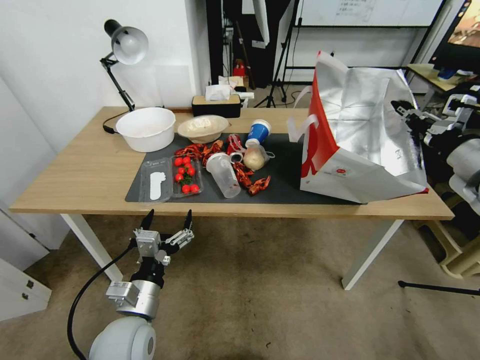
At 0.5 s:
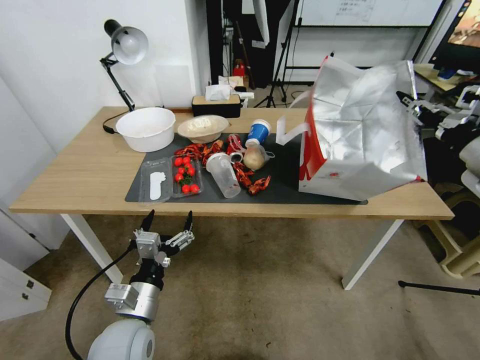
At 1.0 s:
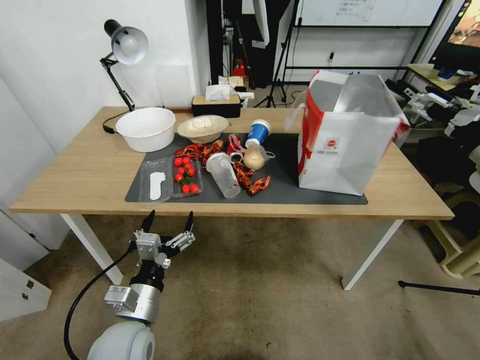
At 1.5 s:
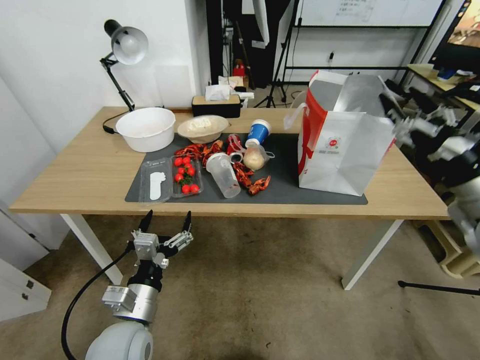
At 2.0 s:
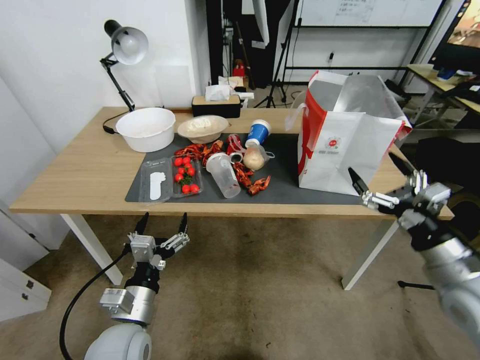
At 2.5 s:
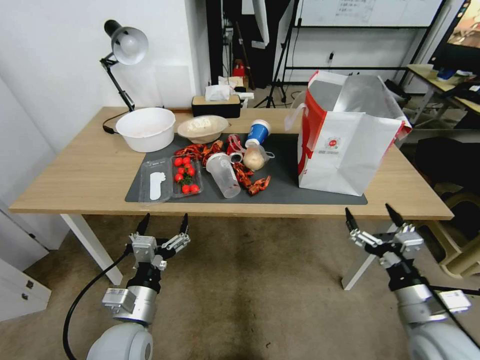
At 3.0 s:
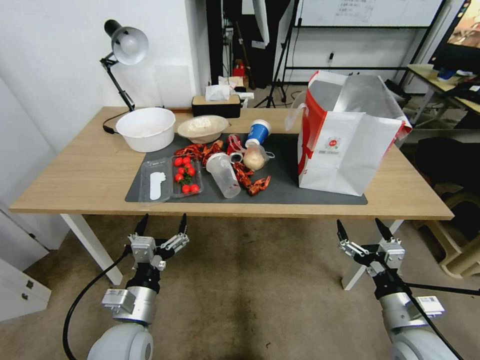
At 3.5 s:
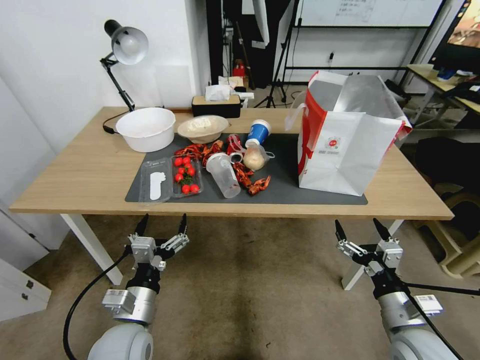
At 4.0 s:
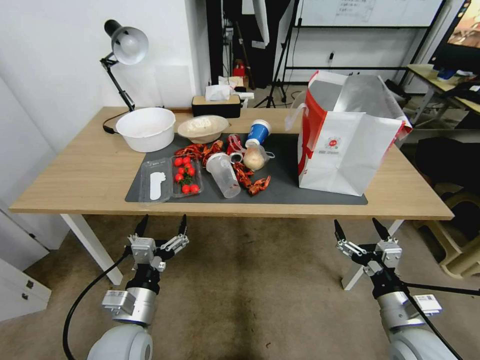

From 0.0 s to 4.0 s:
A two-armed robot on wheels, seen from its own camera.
Task of the whole recording: Pick up the food delivery bag from the floor and place it on the table.
From 0.0 s to 2.0 s: The right gripper moves downward, backward and to the left, some 20 cm, and opens up.
From 2.0 s to 4.0 s: The right gripper is displaced downward and to the left by approximately 15 cm.

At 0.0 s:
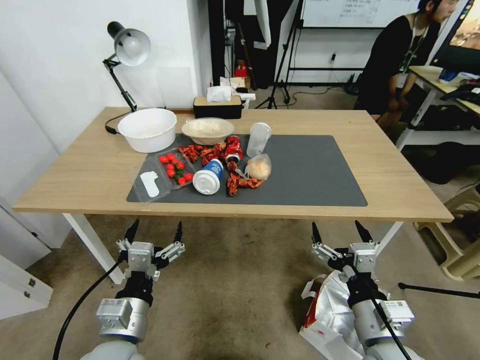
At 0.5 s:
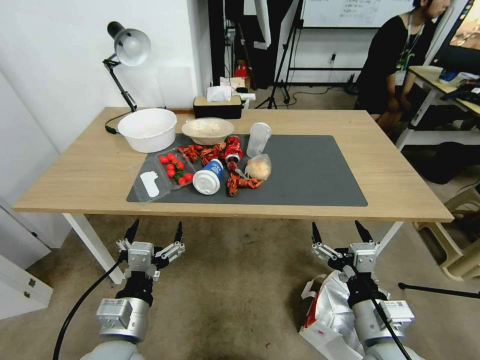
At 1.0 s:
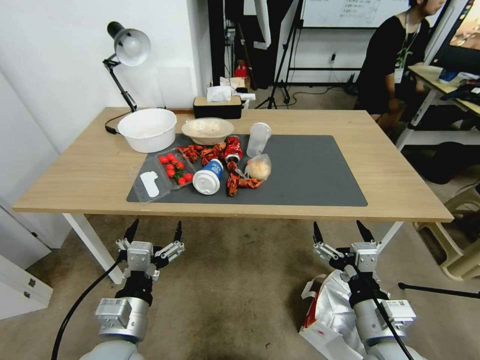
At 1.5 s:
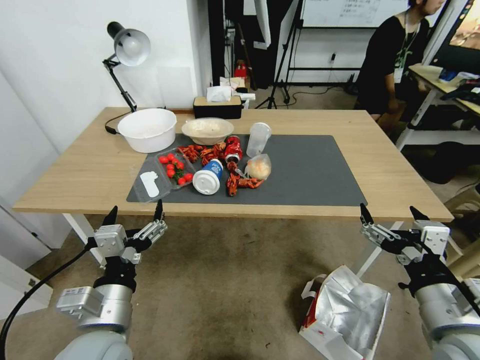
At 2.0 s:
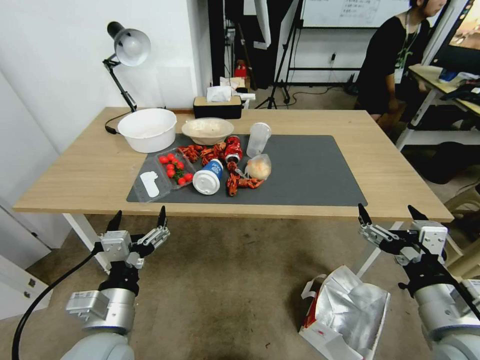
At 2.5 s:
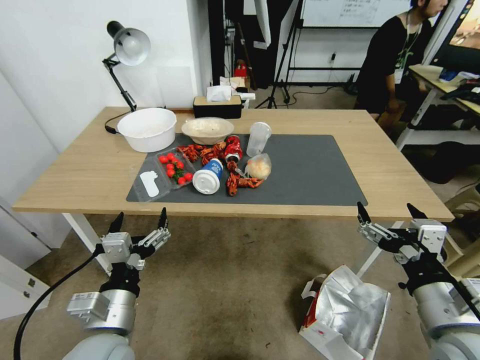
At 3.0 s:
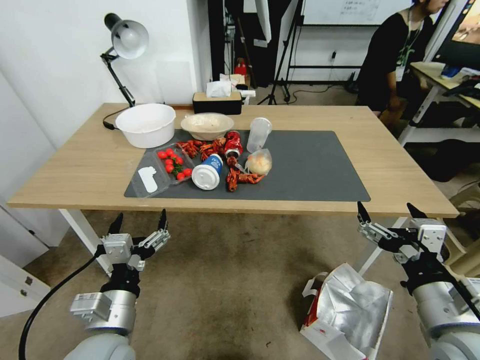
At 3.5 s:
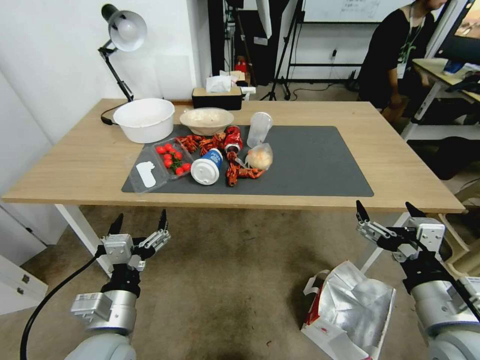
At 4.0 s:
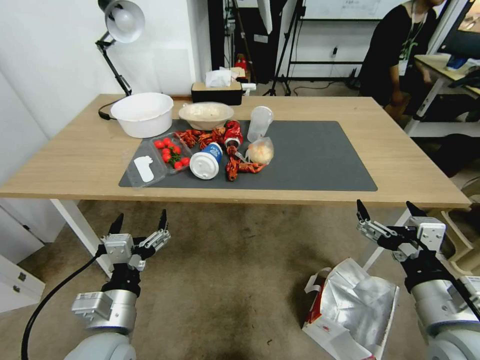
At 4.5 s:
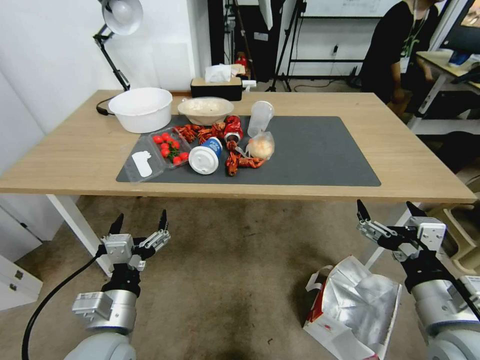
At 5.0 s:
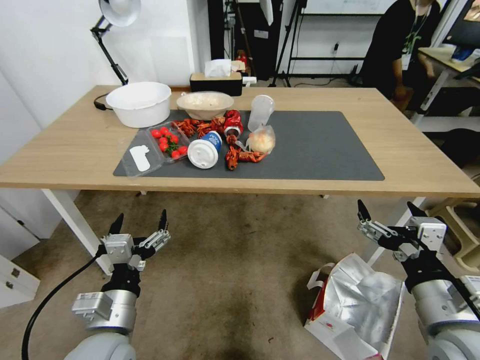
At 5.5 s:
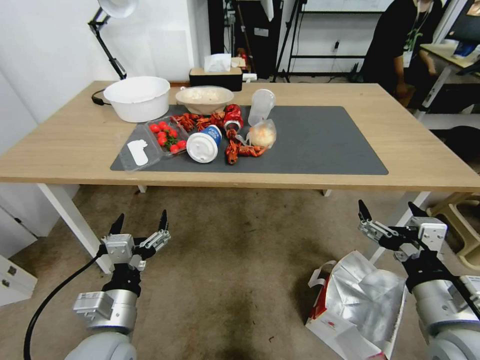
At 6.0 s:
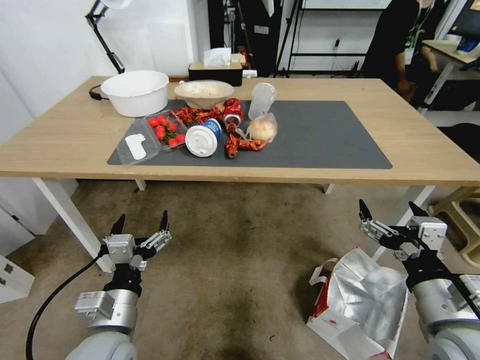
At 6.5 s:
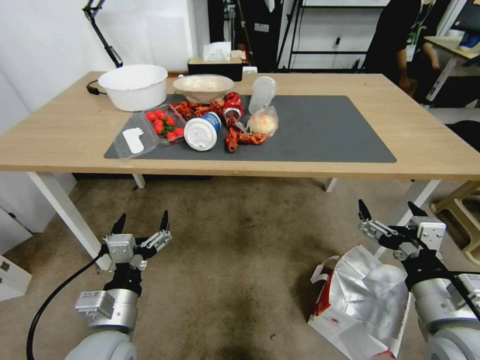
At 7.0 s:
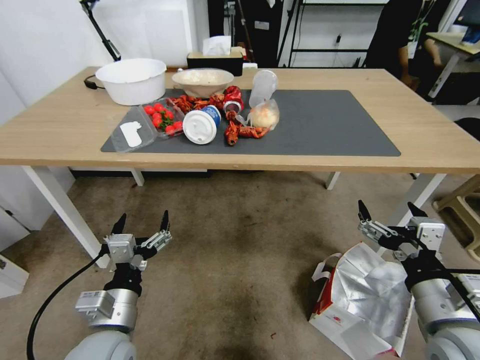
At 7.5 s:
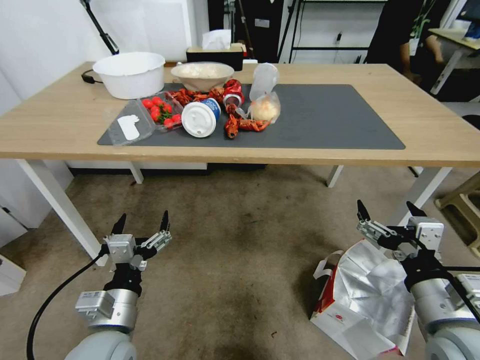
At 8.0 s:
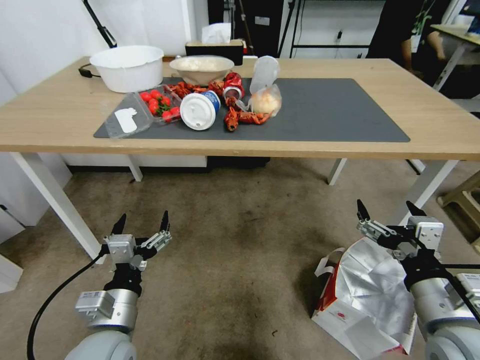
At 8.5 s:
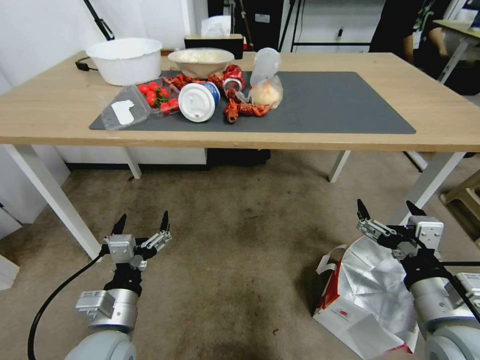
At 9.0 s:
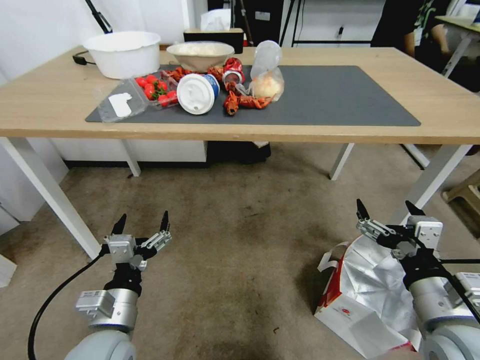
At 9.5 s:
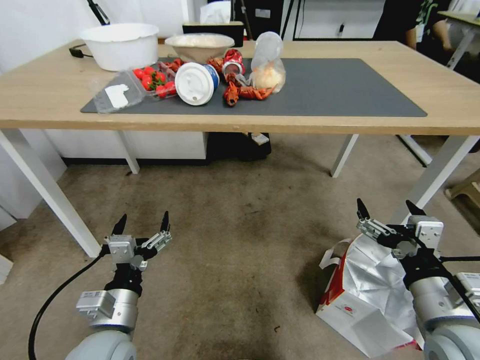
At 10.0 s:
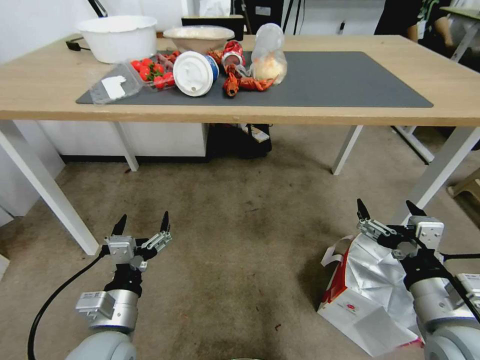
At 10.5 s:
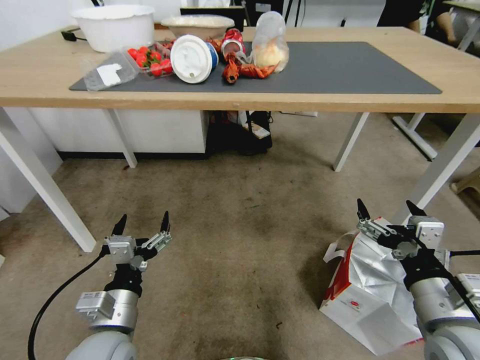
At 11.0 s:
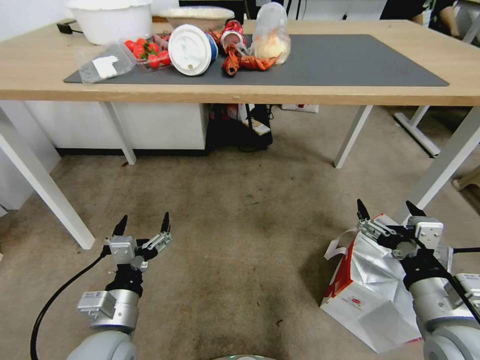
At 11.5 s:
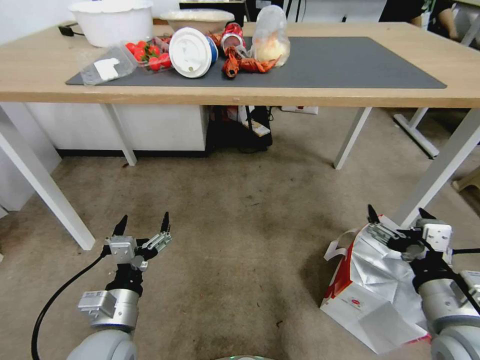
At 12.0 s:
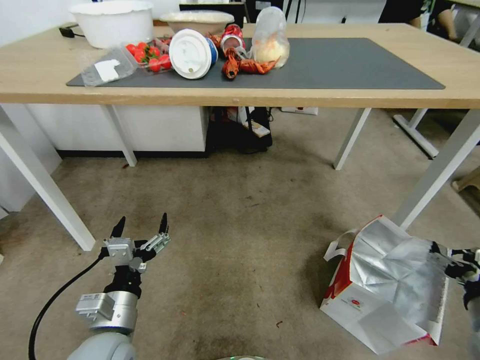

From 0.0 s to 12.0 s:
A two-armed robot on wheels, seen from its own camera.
Task of the whole recording: Pick up the food delivery bag from the floor and place it on the table.
From 10.0 s to 12.0 s: The right gripper goes about 5 cm to the right.

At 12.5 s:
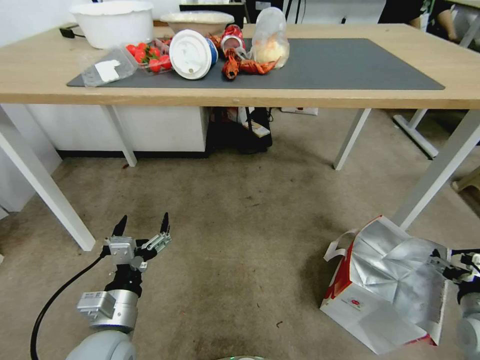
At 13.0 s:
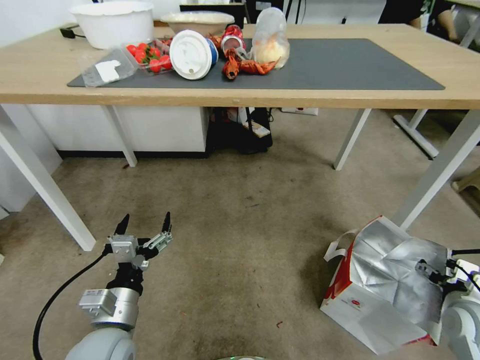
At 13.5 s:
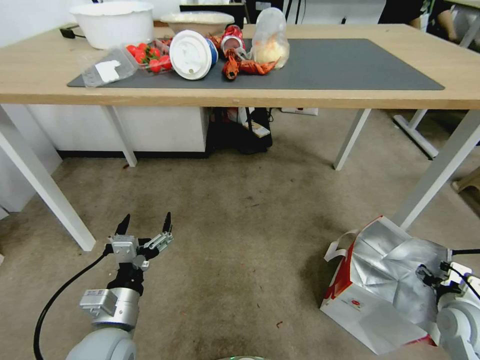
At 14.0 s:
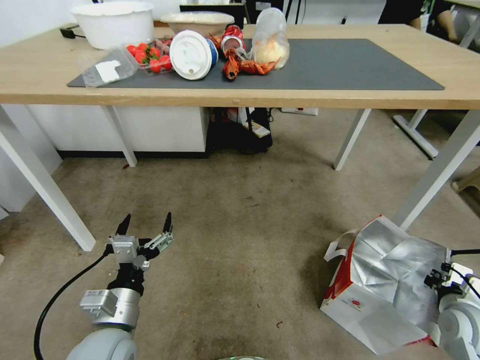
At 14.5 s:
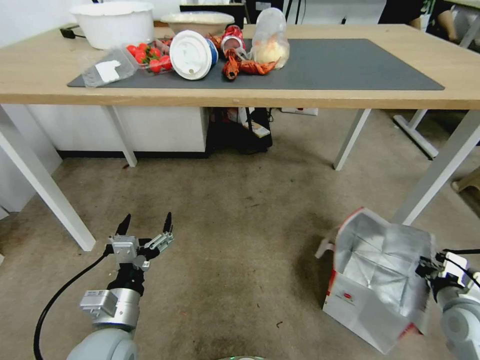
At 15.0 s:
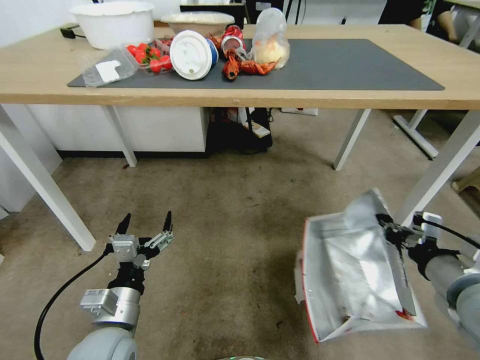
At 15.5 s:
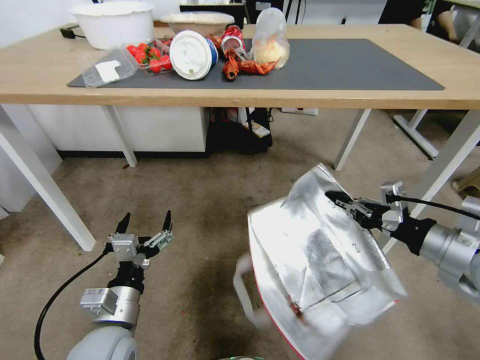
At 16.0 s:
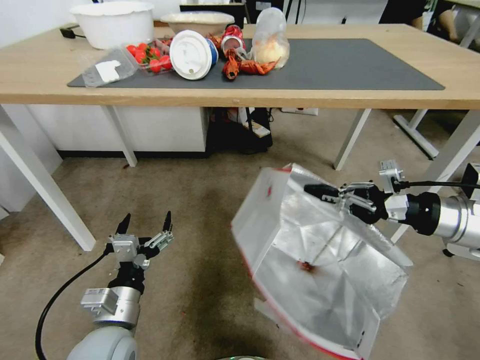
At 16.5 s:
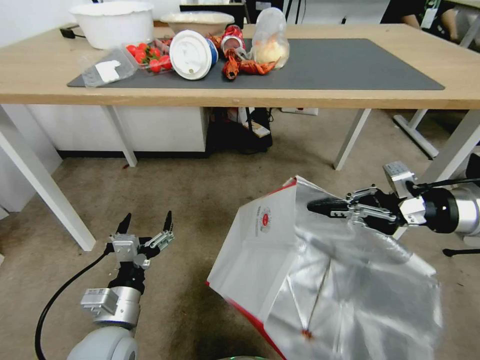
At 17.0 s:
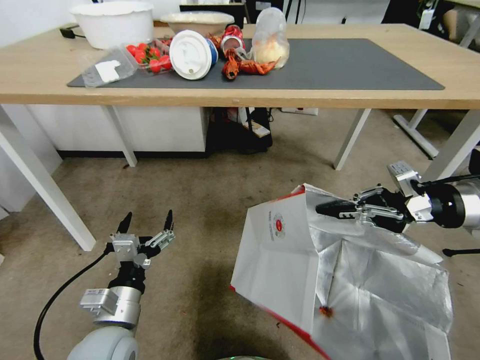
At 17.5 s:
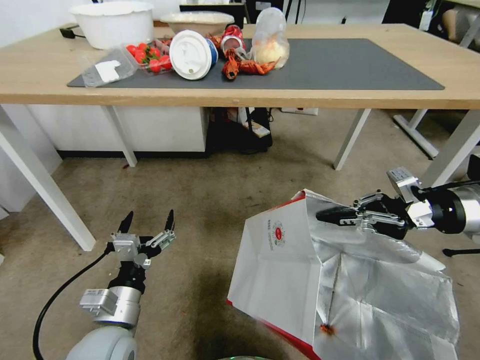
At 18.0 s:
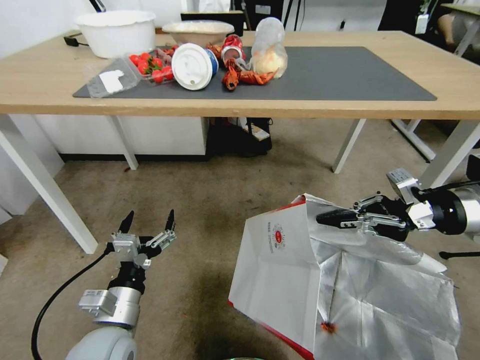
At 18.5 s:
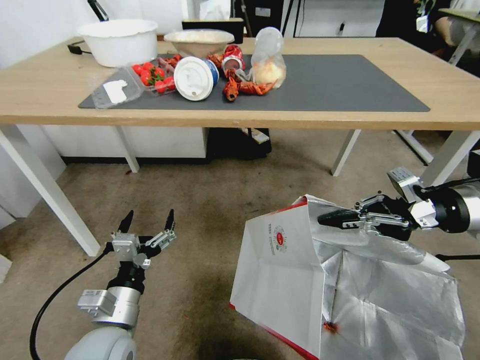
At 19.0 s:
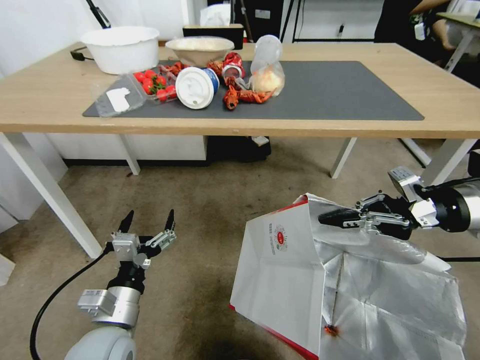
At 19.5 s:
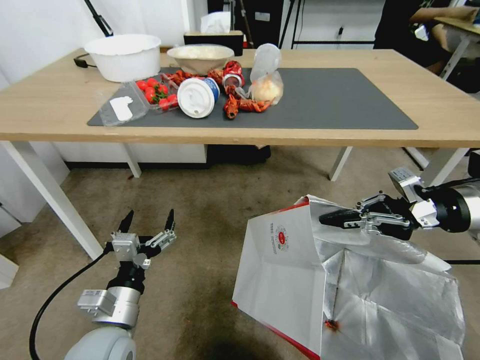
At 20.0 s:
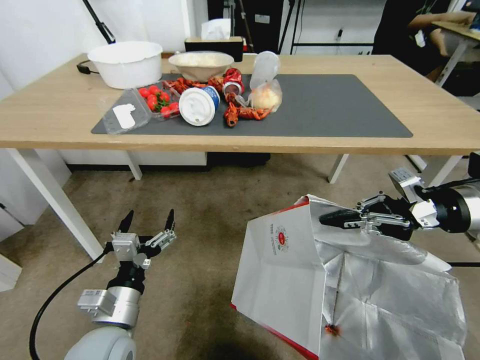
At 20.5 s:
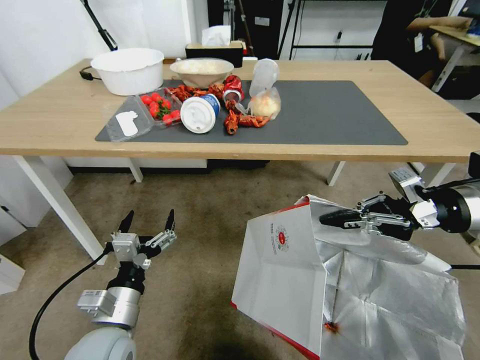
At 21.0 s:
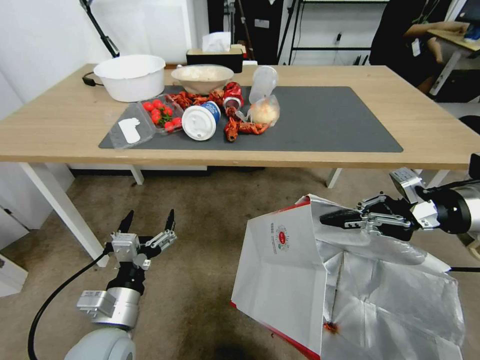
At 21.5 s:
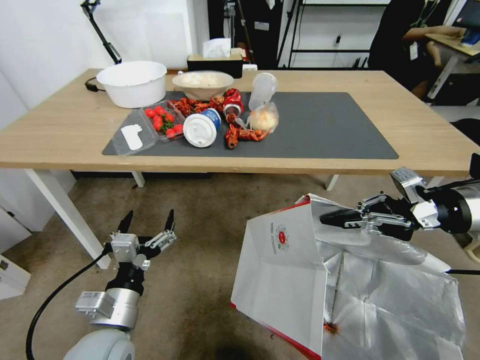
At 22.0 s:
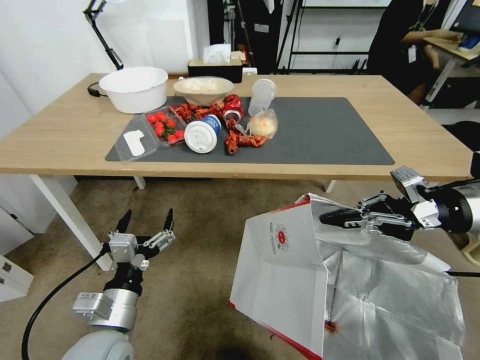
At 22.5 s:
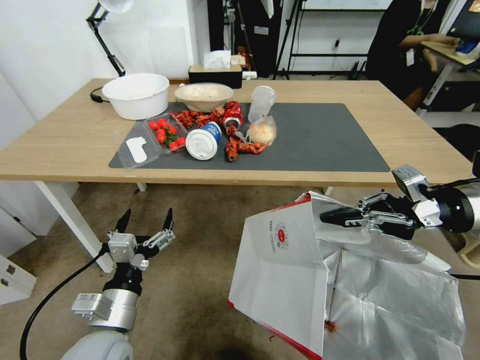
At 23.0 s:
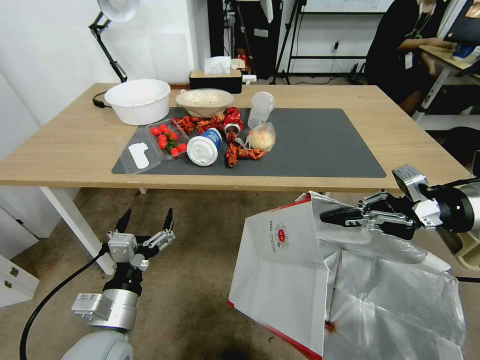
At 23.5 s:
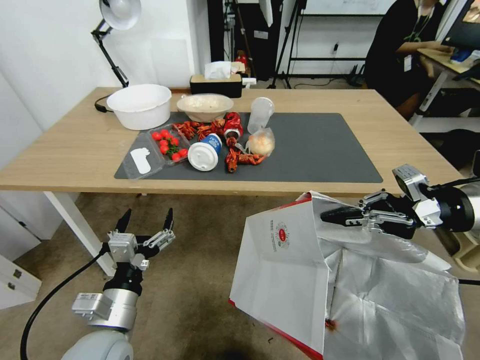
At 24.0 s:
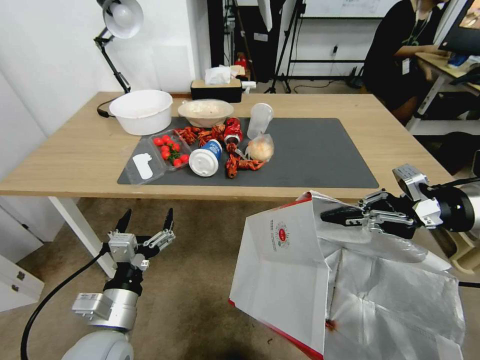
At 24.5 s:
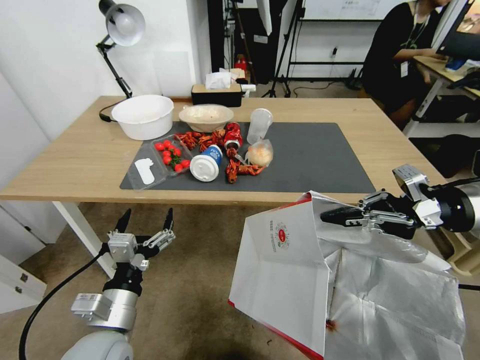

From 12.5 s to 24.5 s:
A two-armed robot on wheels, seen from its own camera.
Task of the whole recording: Pick up the food delivery bag from the floor and place it on the table.
From 12.5 s to 14.5 s: The right gripper closes up.
From 14.5 s to 16.5 s: The right gripper travels upward by about 25 cm.
